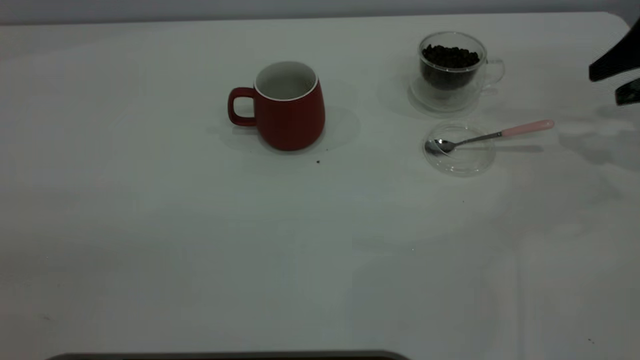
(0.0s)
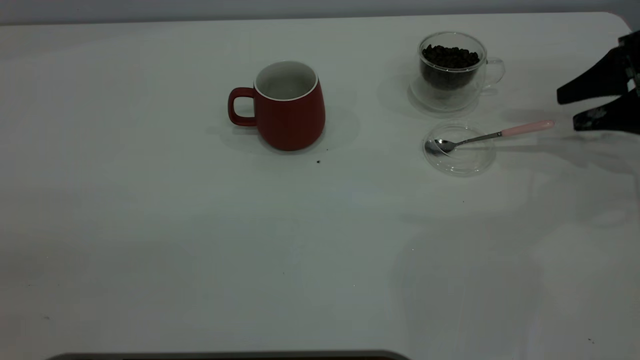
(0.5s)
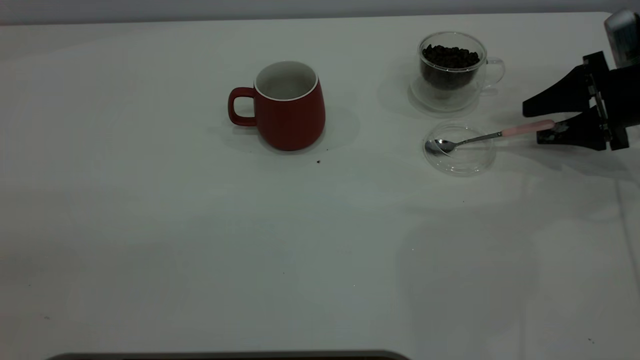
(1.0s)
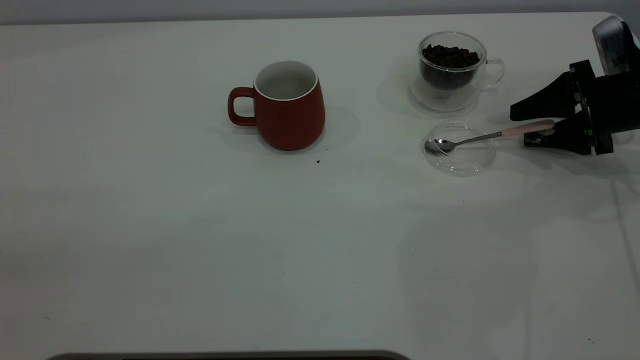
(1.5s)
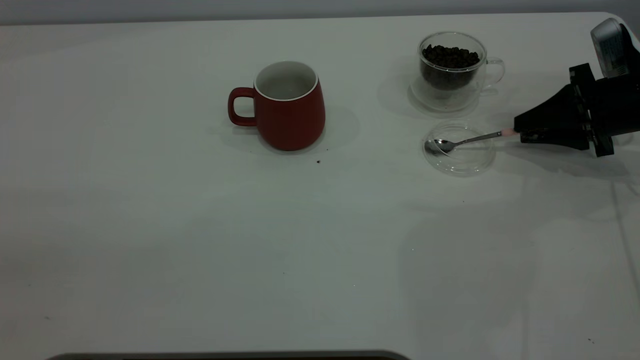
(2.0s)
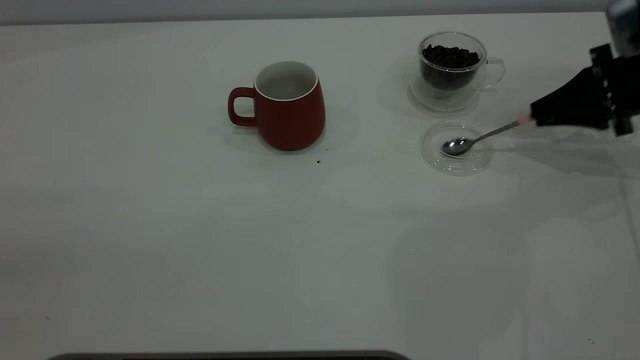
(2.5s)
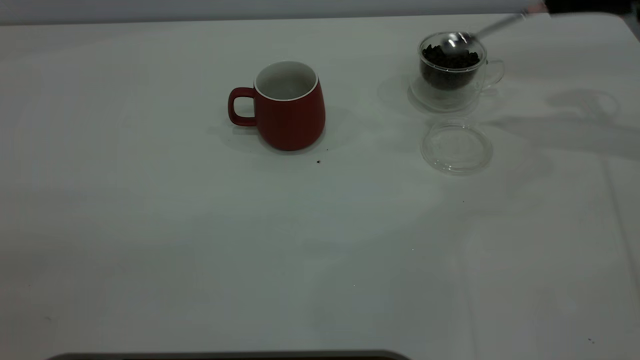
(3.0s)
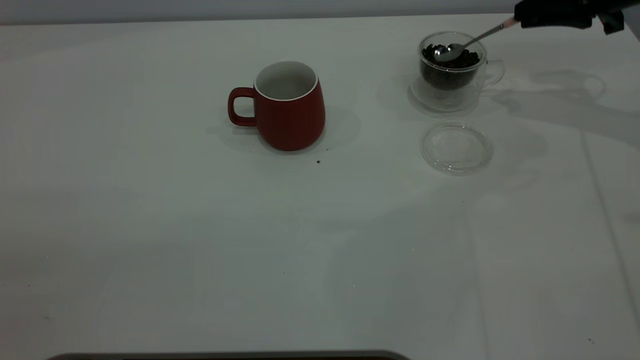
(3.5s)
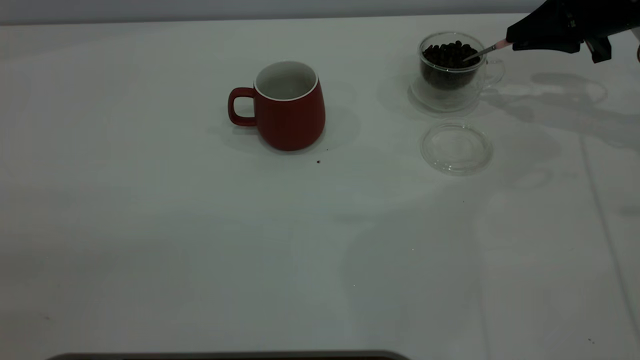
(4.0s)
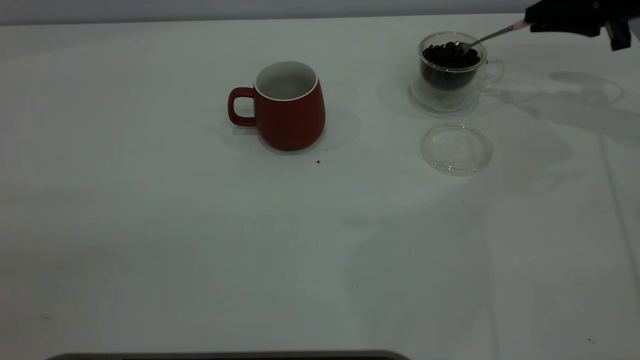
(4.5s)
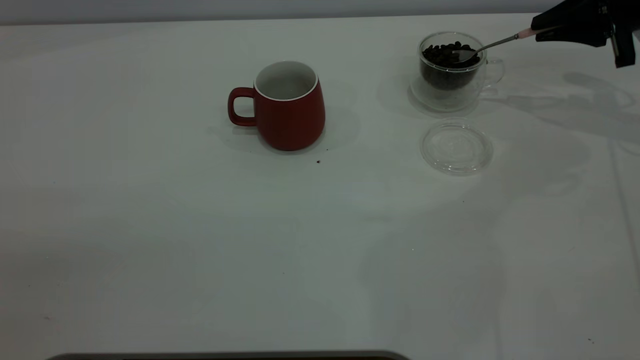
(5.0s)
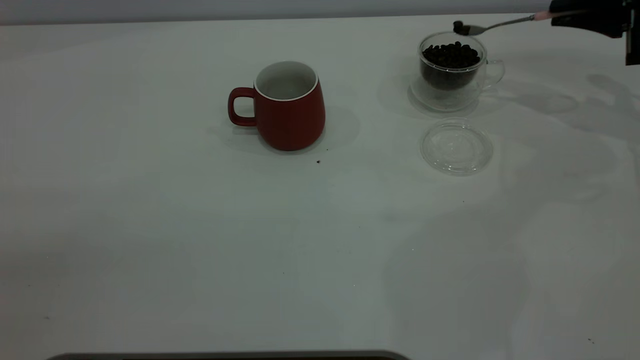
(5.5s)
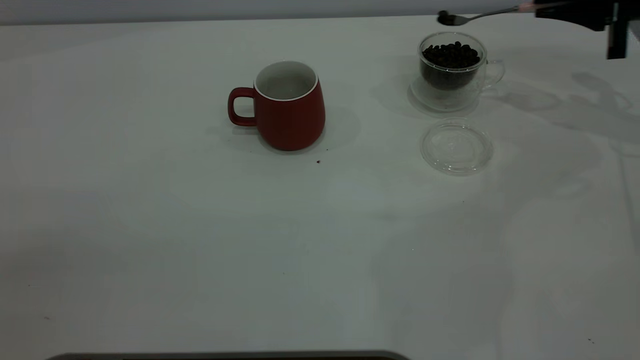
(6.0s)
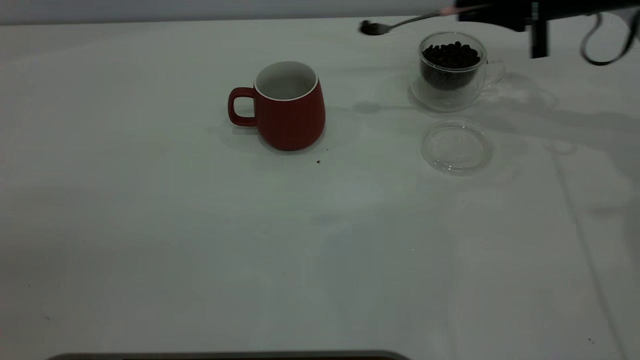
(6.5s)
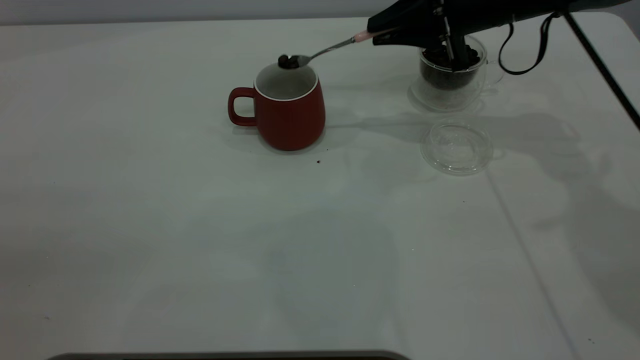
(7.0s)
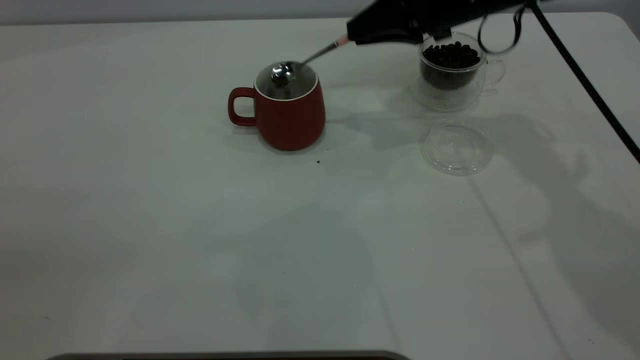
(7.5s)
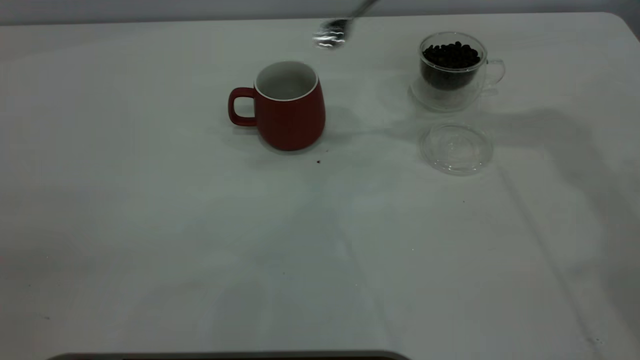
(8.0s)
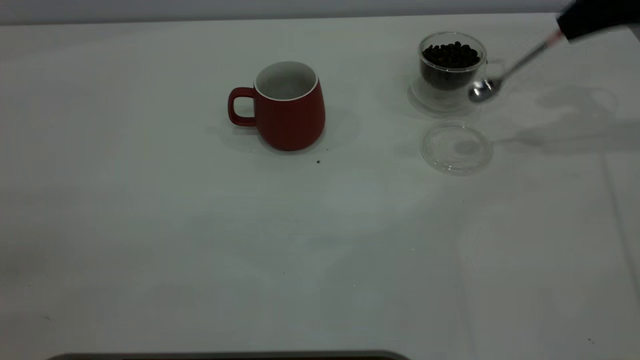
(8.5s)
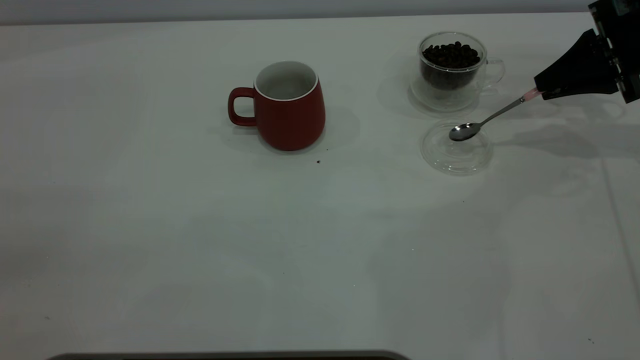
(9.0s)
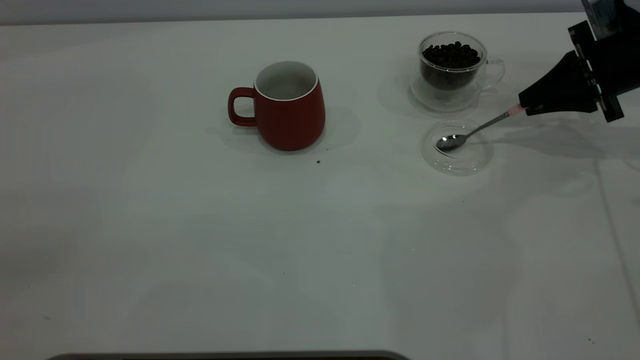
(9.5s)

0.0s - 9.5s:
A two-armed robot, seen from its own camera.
Task of the whole recording: the left gripper place the red cup in the center of the table, the right gripper take the pink spoon from the cup lid and scoop out the coffee beans from the coffee cup and put them into the red cup, the right gripper put the spoon back into the cup lid.
Step, 0.0s - 2.5s: Pick up the spoon.
Step, 3.0s - 7.5s: Scoop a spoonful of beans into the cup.
0.0s - 2.0s: The right gripper shifts approximately 10 cm downward and to the left, and closes up.
2.0s - 4.0s: The right gripper moves upward and forward, roughly 10 cm.
4.0s - 5.5s: The right gripper goes roughly 5 cm to the right.
5.5s - 7.5s: The right gripper heads to the left, covering roughly 25 cm.
7.5s - 9.5s: The right gripper shifts some 20 cm to the right.

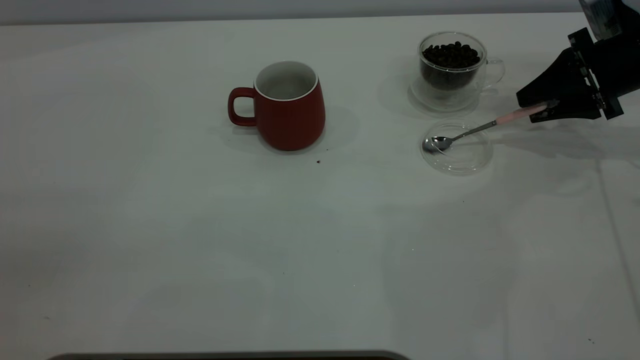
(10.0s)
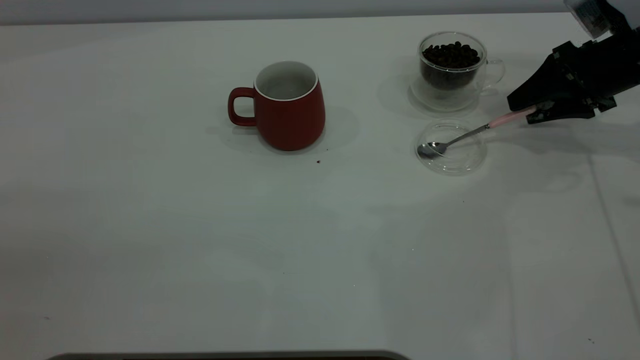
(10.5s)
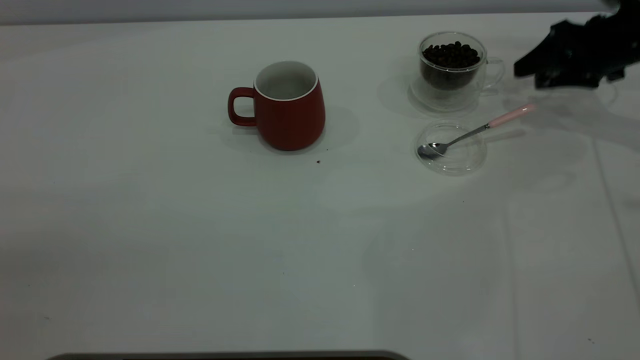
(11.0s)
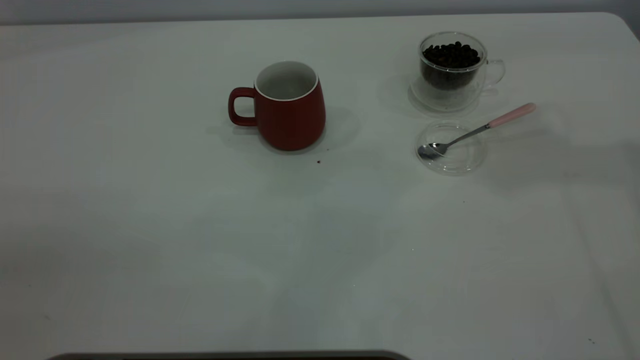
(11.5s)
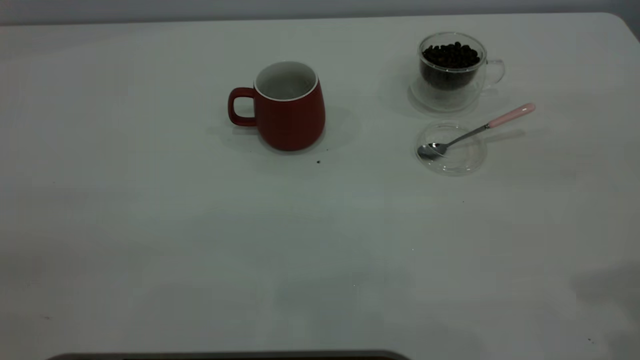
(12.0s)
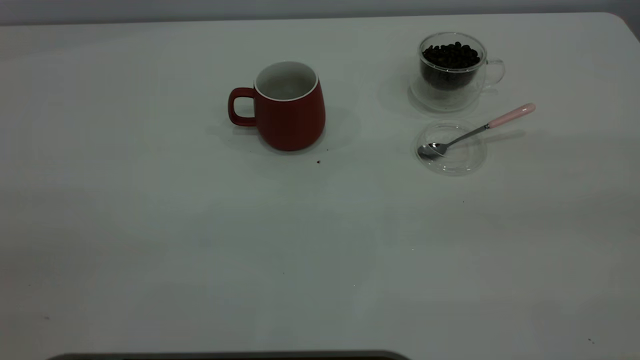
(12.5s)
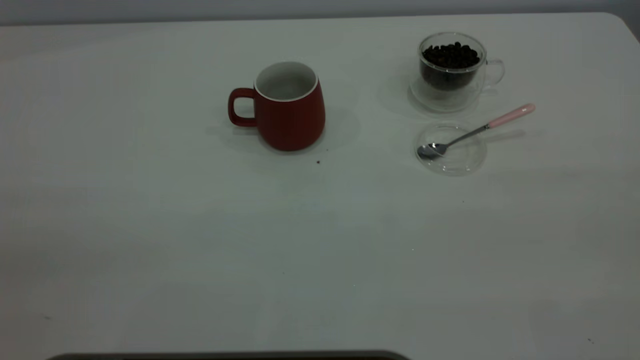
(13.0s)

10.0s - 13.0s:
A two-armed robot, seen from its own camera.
Task of the whole recording: the left gripper place the red cup in the center of the table, the right gripper take the pink spoon from the cup lid and scoop out the coffee beans from the coffee cup and put them into the red cup, the right gripper put the spoon back into the cup lid.
10.0s - 11.5s: The right gripper moves upward, about 25 cm.

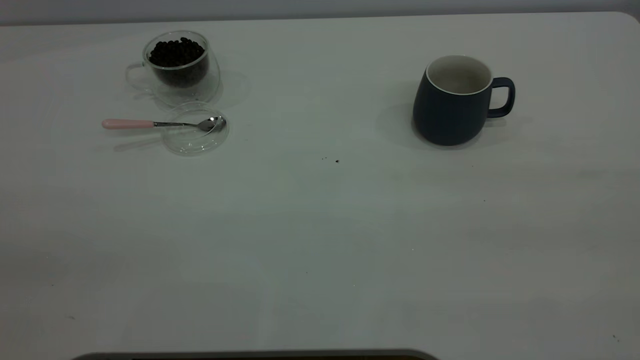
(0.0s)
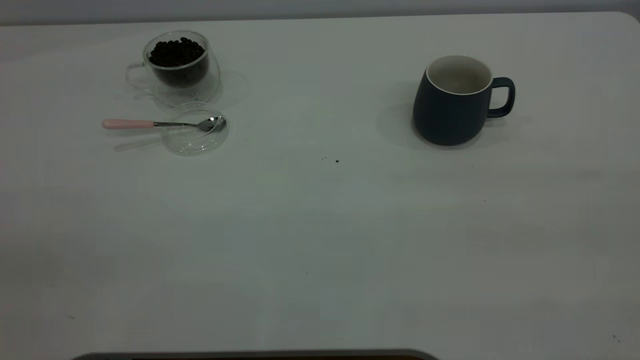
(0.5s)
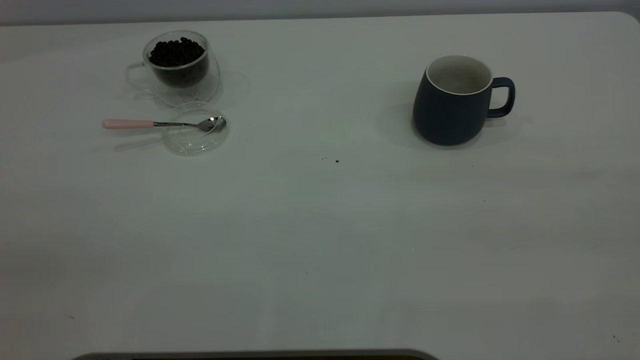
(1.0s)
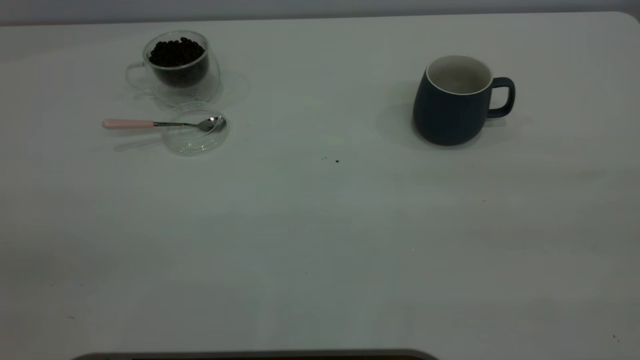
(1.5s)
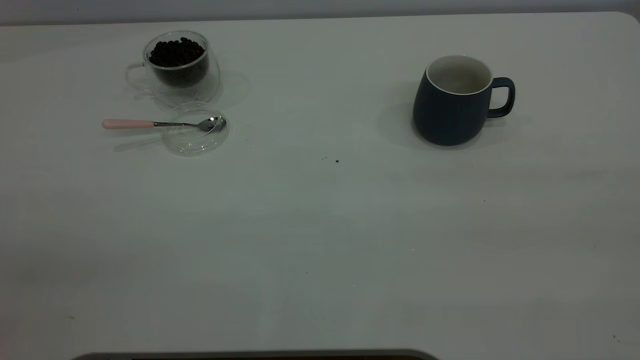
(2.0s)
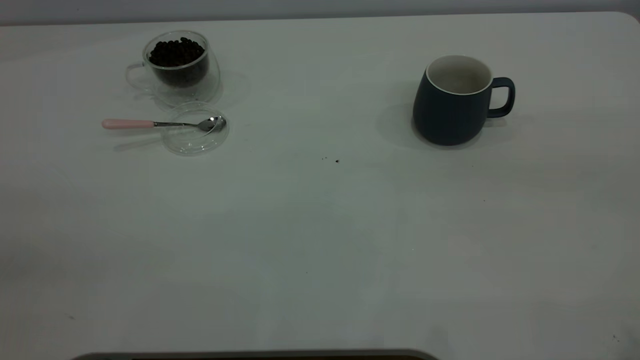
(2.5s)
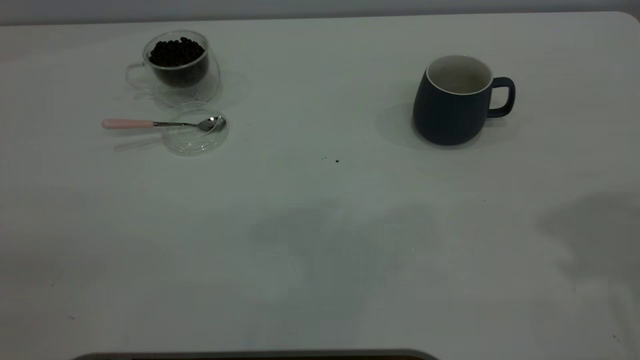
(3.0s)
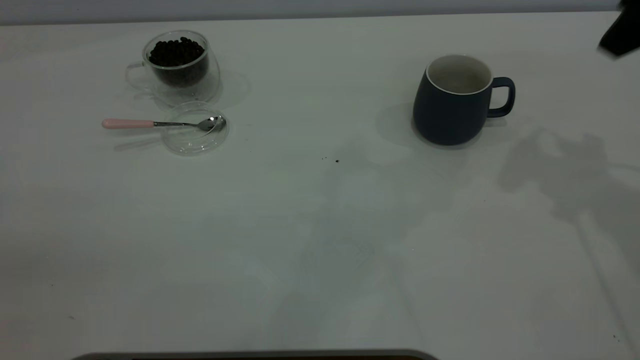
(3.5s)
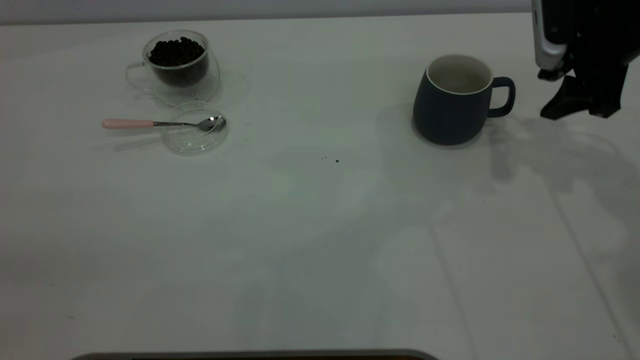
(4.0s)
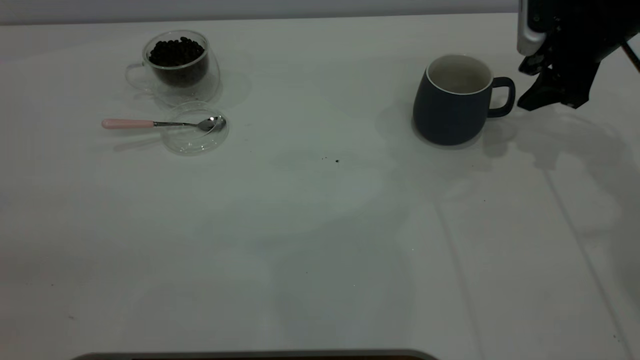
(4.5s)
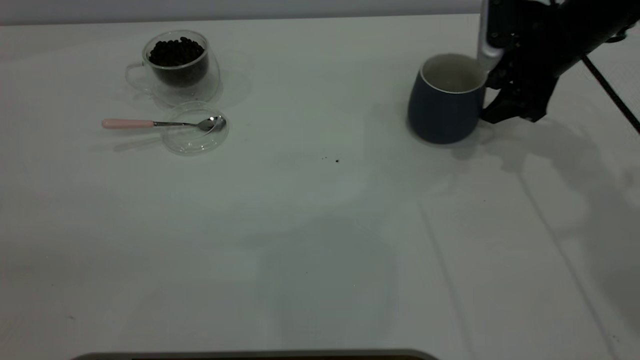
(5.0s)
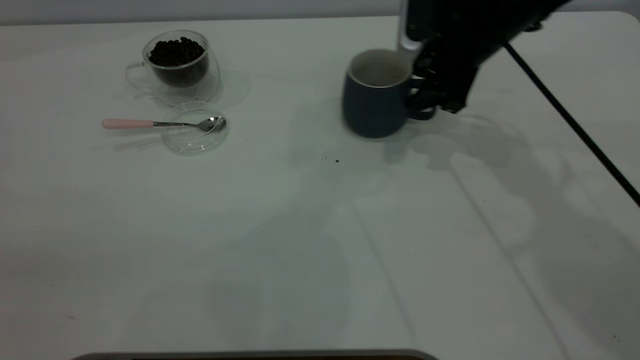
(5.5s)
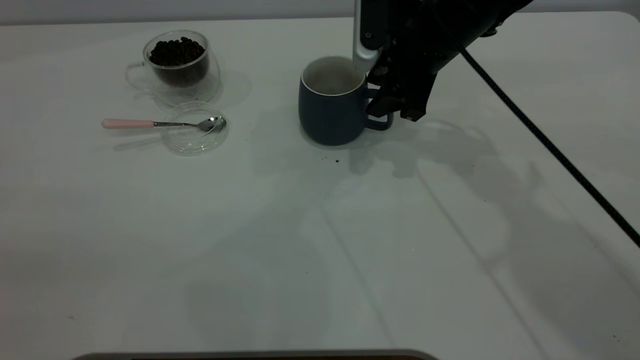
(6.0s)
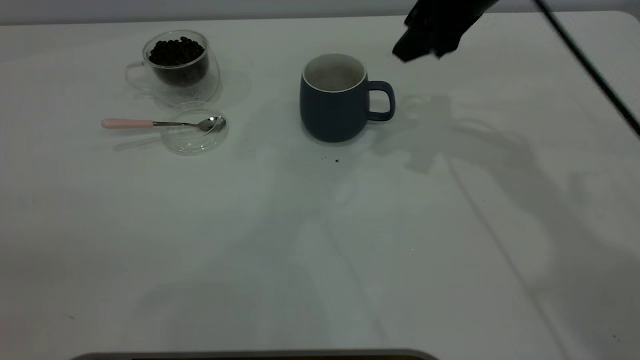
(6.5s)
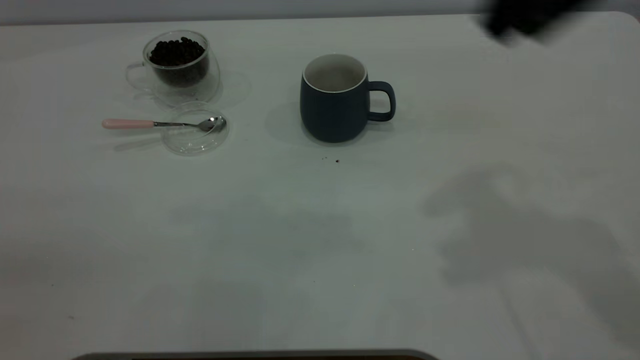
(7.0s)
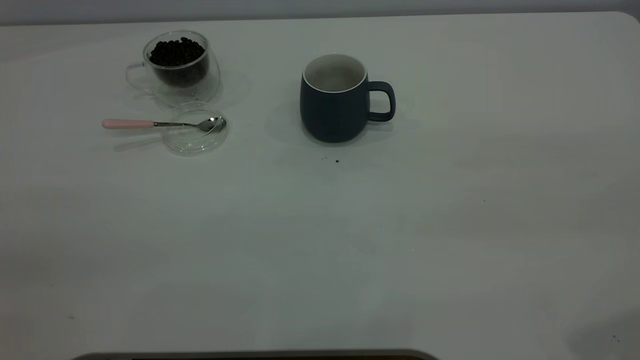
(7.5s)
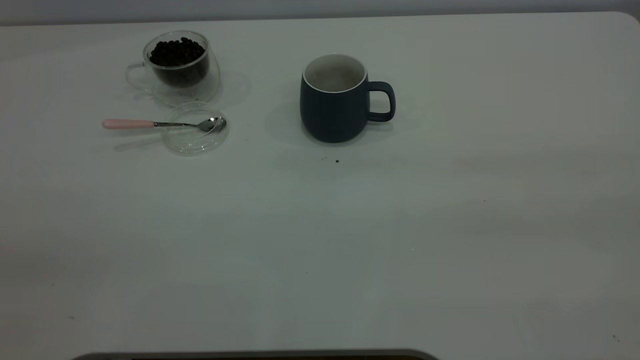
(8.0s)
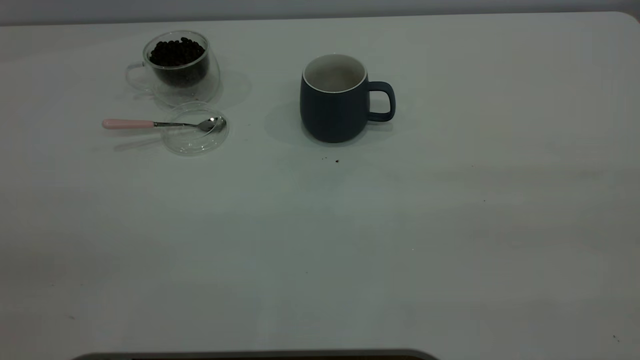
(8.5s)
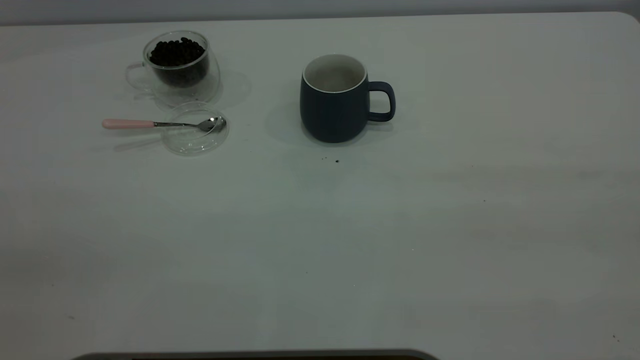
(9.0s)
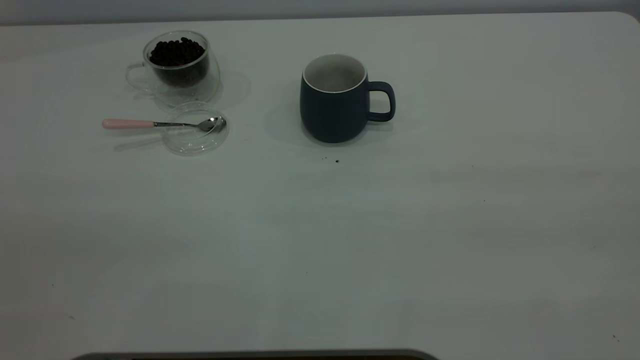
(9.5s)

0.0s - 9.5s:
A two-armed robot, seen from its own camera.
Task of the whole recording: the right gripper place the grey cup in the center of the table, the left gripper take the pink spoon from the cup lid and scoop out the coffee beans from the coffee cup and put them into the grey cup, the left gripper put the spoon back into the cup lid.
Step, 0.0s - 6.5s: Move the cup to the center of view.
0.0s - 2.0s: The two grippers keep their place.
2.0s - 4.0s: The right gripper shifts some 50 cm forward and downward, and opens up.
4.0s - 5.5s: The right gripper is displaced to the left by about 15 cm.
5.5s - 7.5s: The right gripper goes approximately 40 cm backward and upward.
